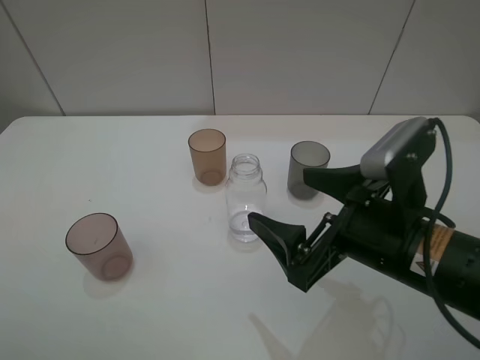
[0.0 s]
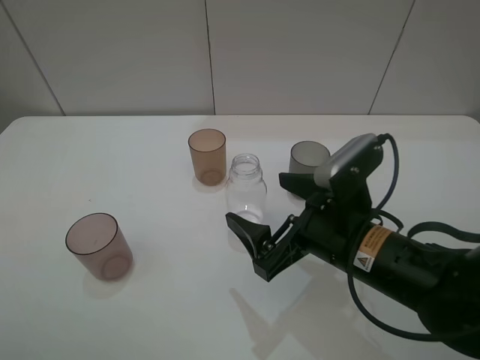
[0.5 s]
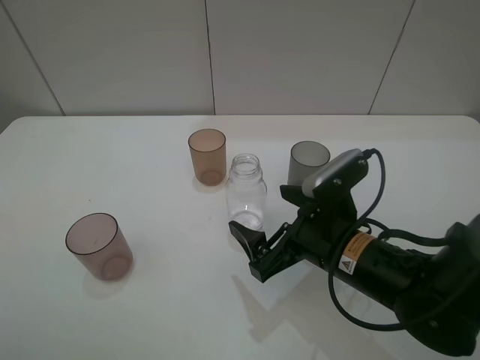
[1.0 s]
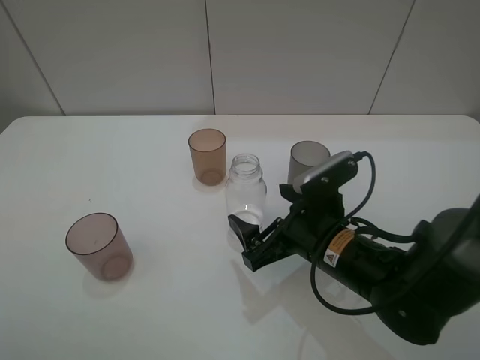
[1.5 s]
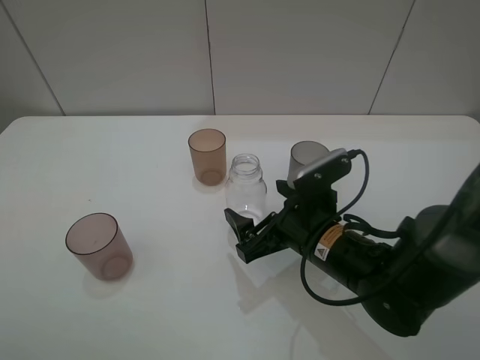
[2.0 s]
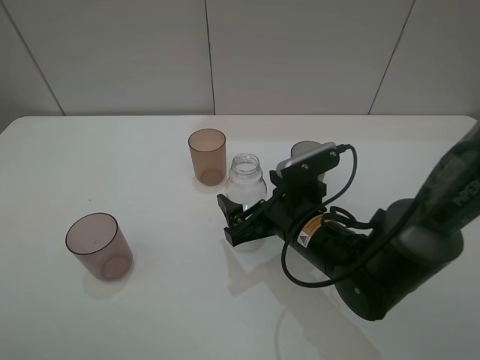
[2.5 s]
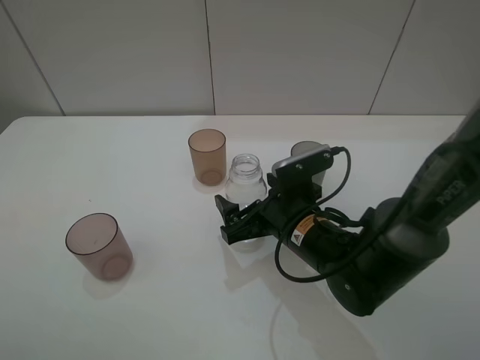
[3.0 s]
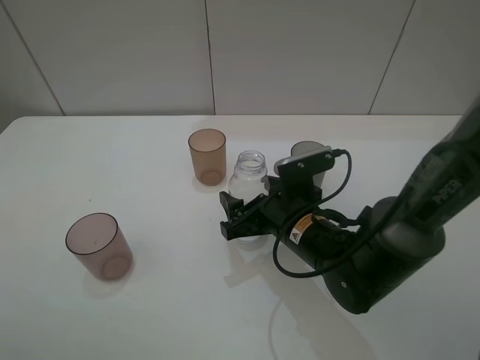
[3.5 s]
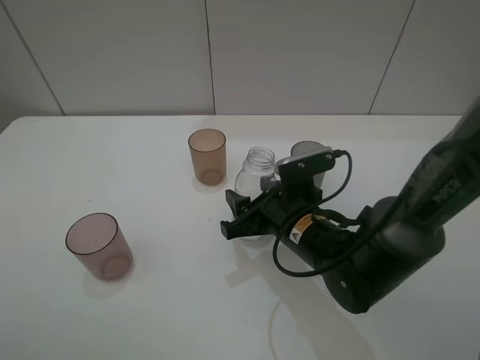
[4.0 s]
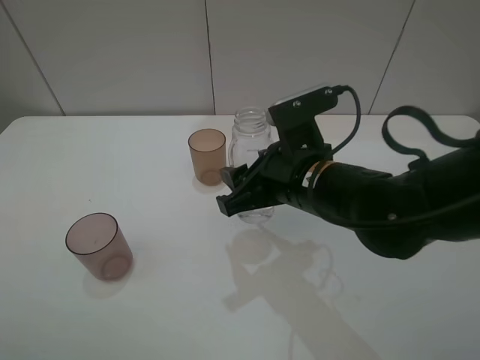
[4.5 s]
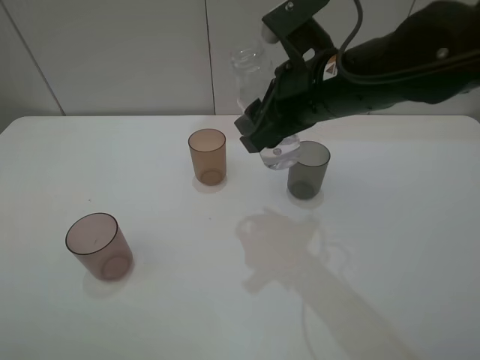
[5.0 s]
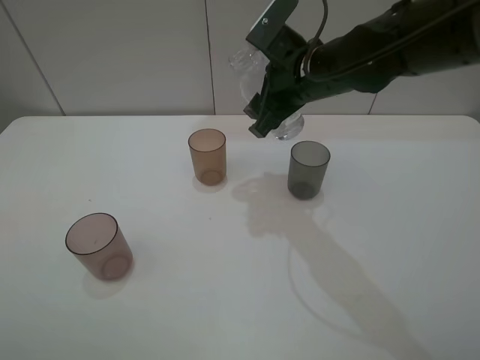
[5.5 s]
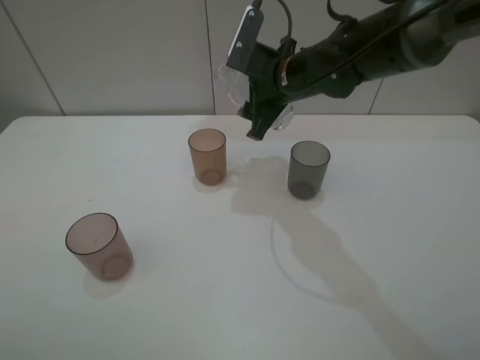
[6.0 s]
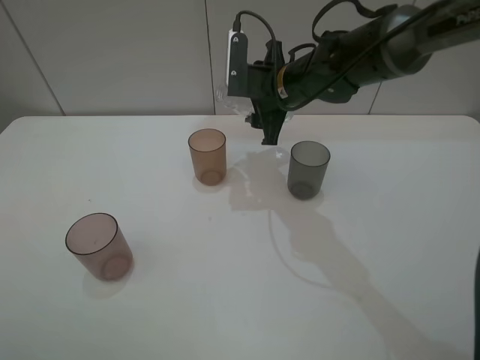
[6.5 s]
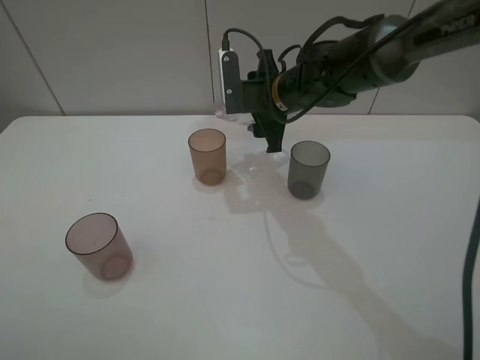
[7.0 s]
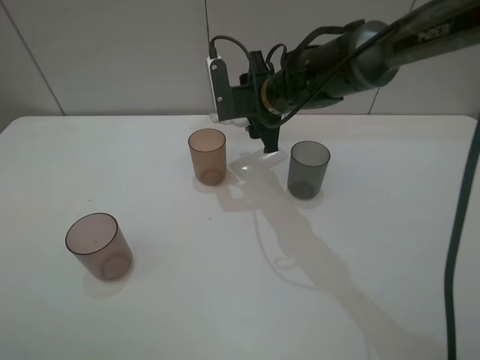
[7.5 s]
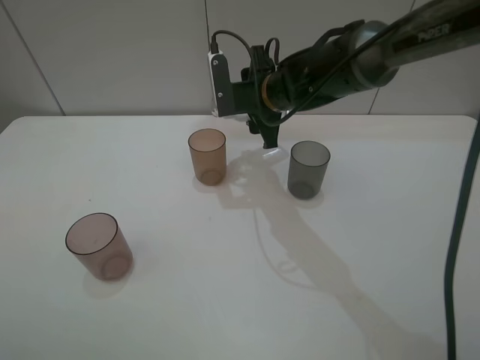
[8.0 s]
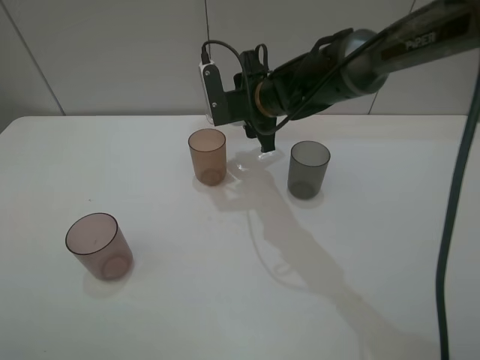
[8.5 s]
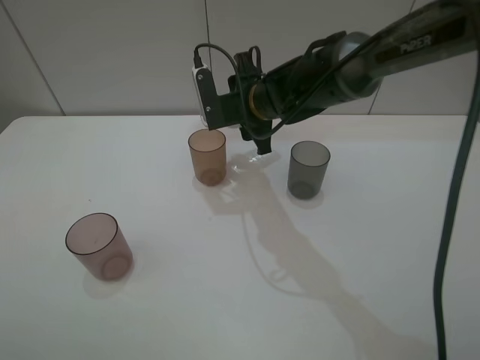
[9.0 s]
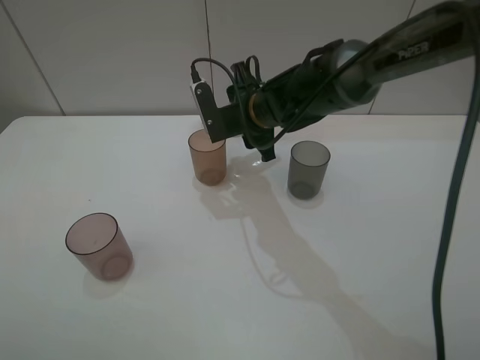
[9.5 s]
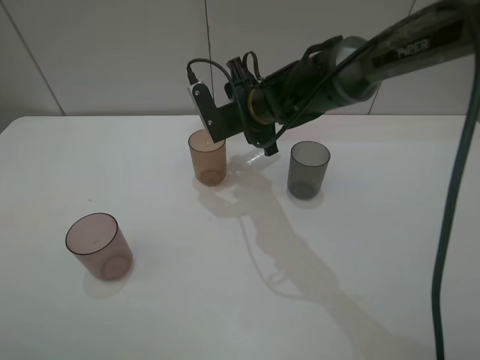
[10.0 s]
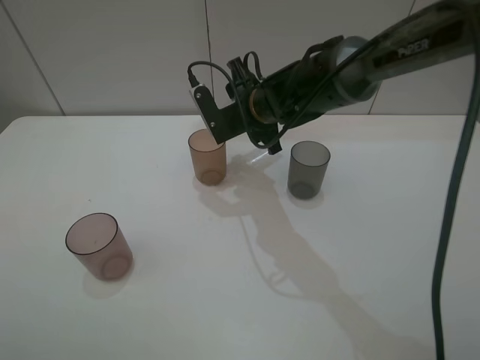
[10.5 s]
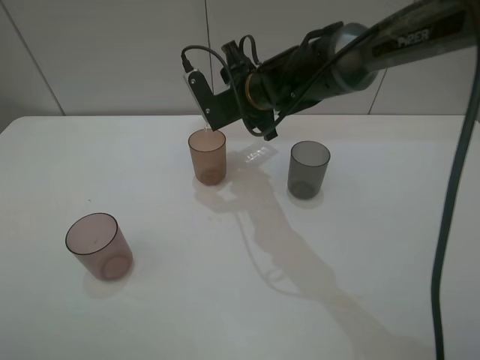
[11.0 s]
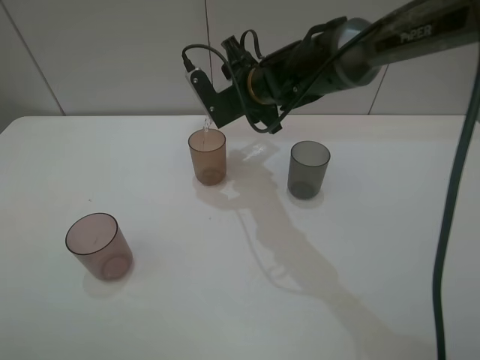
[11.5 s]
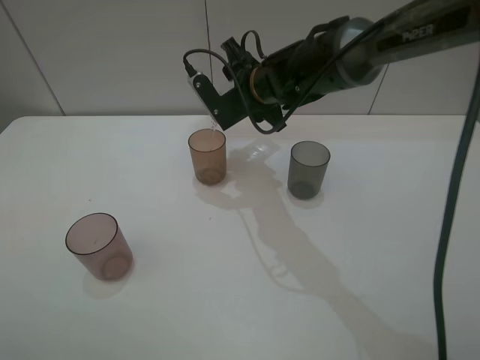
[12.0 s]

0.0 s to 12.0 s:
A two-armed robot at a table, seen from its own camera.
Task of the whole recording: pick up the bottle filled with water and pour water into the middle cup of the three cups.
Step, 0.0 to 3.5 s: Grasp the transparent bottle with the right gripper.
Step, 4.0 to 10.0 s: Pour water from transparent bottle tobrown cup with the right gripper.
0.0 to 2.0 s: The right gripper heads downward and forward, covering roughly 10 cm.
2.0 to 4.0 s: The right gripper closes up.
4.0 to 6.0 s: The right gripper heads forward and upward, covering some 20 cm.
8.0 to 10.0 s: There are only small adjustments of the grippers.
10.0 to 12.0 s: The grippers move only a little.

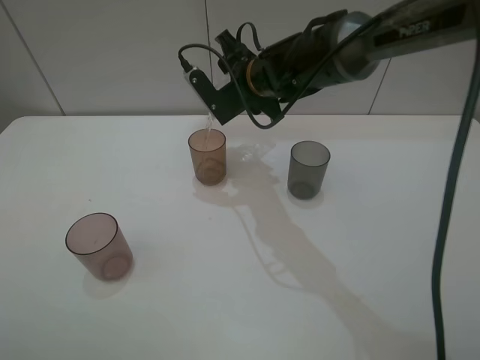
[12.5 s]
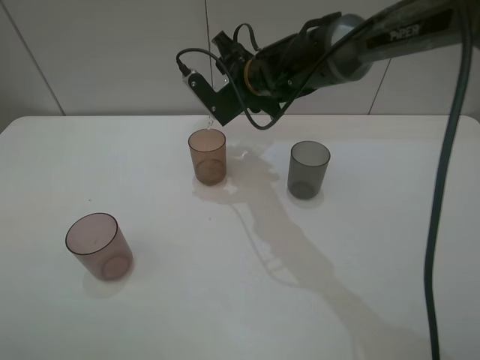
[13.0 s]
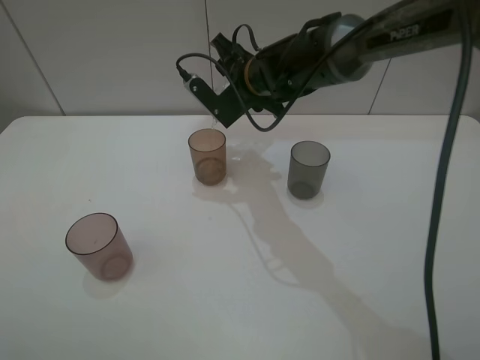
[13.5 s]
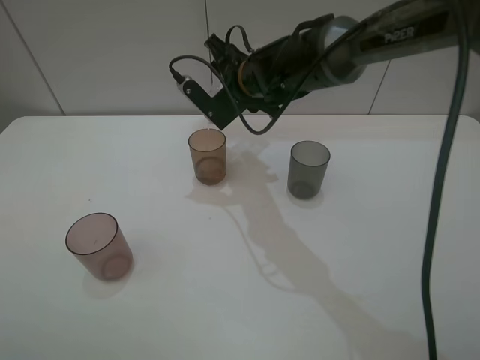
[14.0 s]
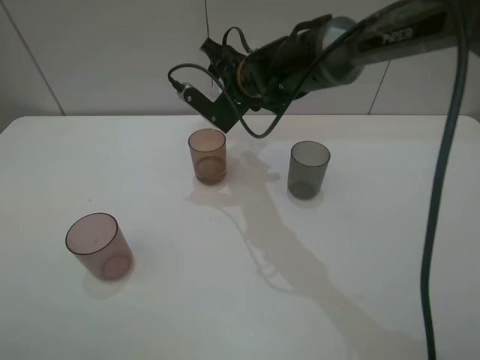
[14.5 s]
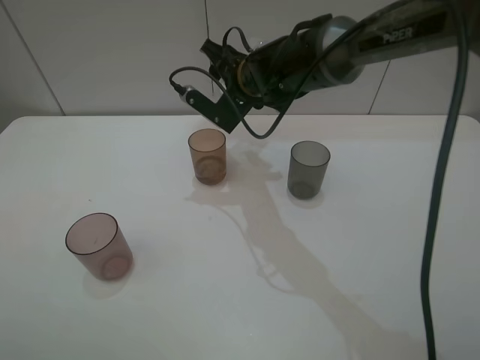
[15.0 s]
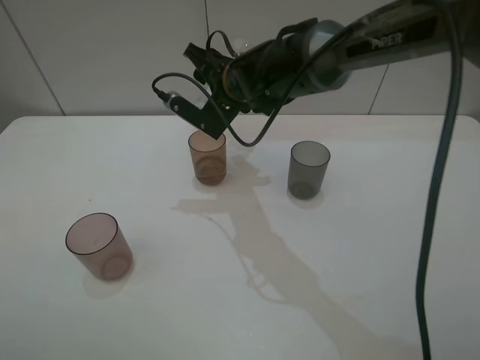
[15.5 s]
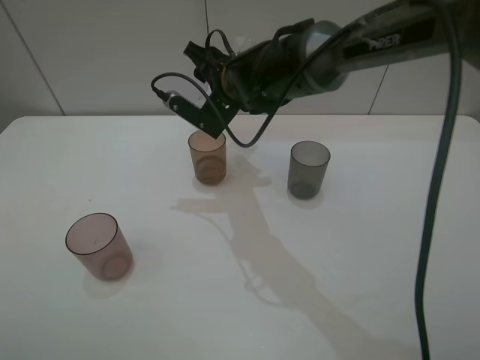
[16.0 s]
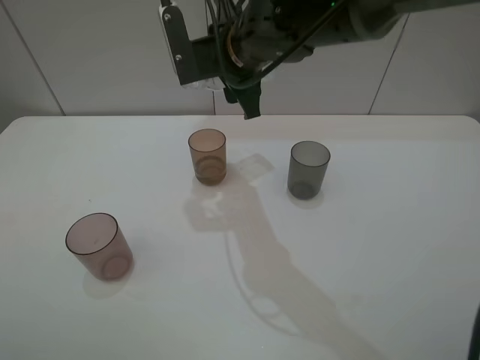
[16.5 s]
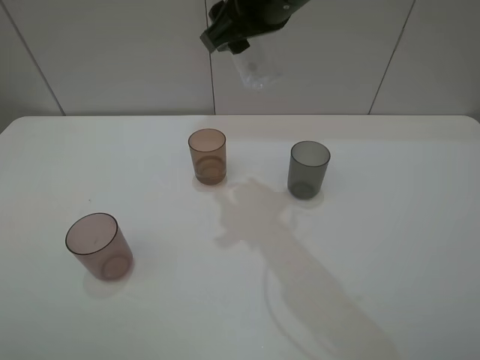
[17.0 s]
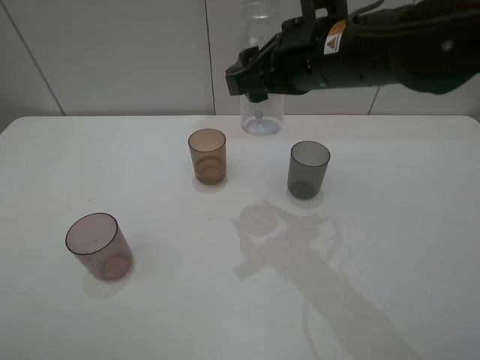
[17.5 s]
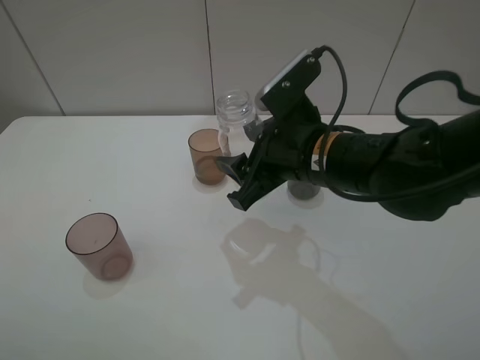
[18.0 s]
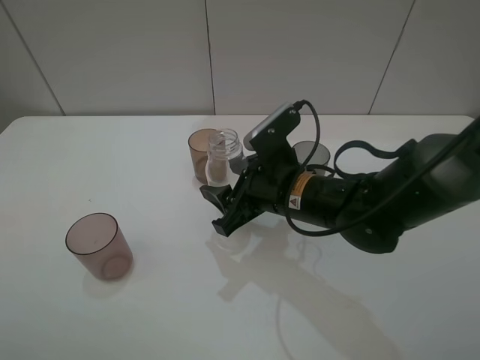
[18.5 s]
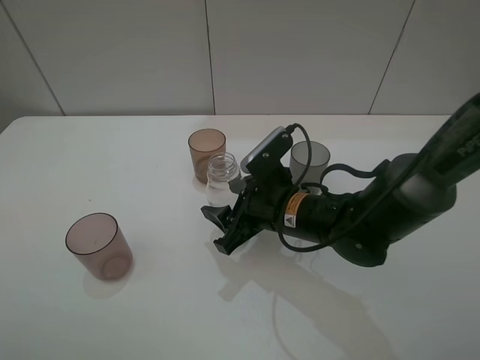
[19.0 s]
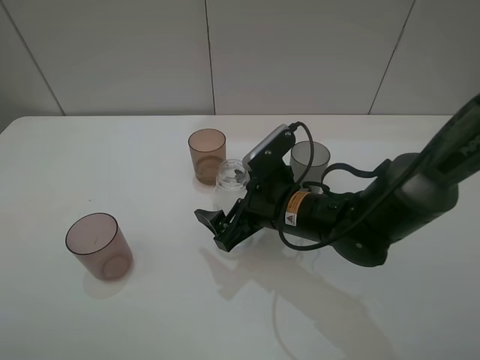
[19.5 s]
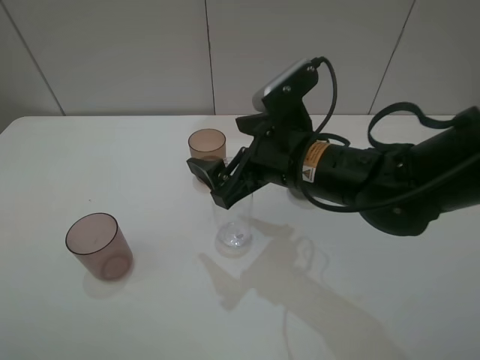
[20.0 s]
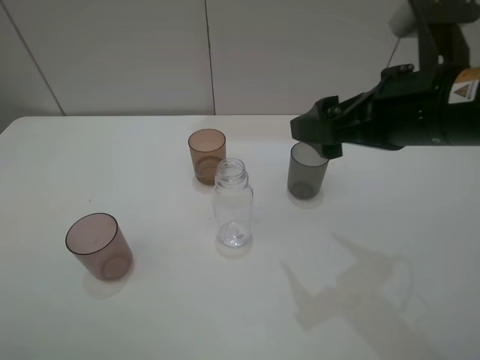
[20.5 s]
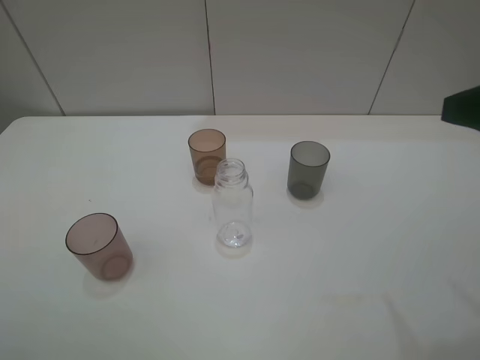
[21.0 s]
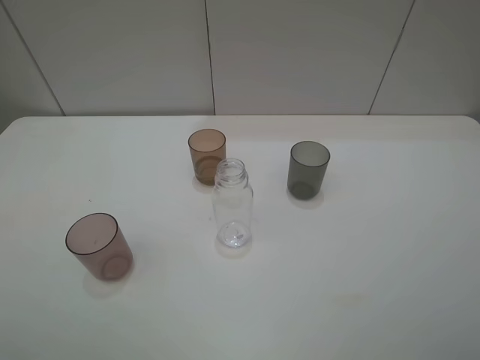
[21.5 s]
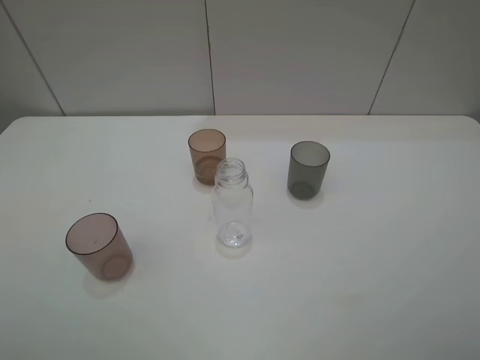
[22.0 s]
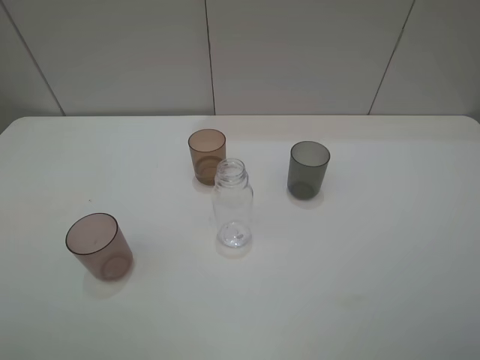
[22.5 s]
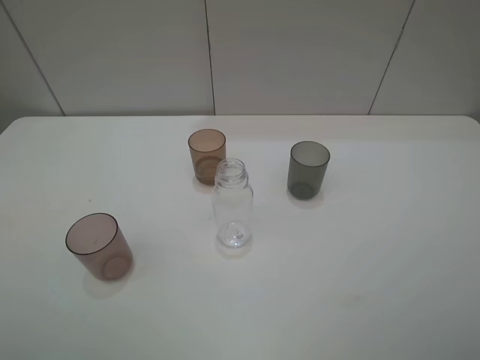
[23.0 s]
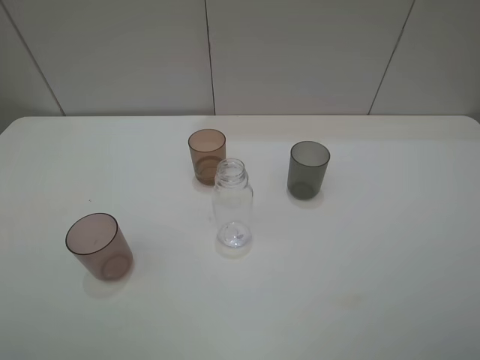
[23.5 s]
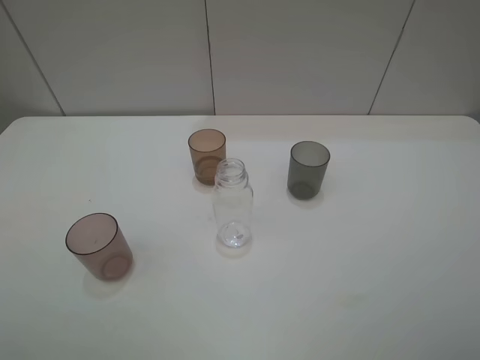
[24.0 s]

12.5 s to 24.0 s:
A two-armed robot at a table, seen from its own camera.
Task of the whole recording: pick up the bottle filled with water and pour water into the middle cup of the three cups.
Step, 12.5 to 20.0 s: Place the transparent bottle with the right gripper.
12.5 to 14.5 s: The grippers move only a little.
14.5 to 16.5 s: The right gripper goes roughly 5 cm upward.
16.5 to 18.5 s: The right gripper is displaced downward and backward by about 20 cm.
18.5 to 20.0 s: The right gripper moves upward, approximately 5 cm, and opens up.
20.0 to 22.0 s: The right gripper moves backward, to the right and upward, some 35 cm.

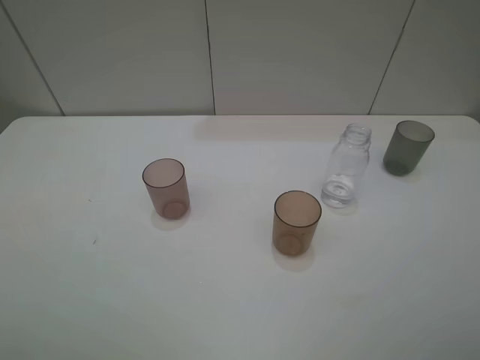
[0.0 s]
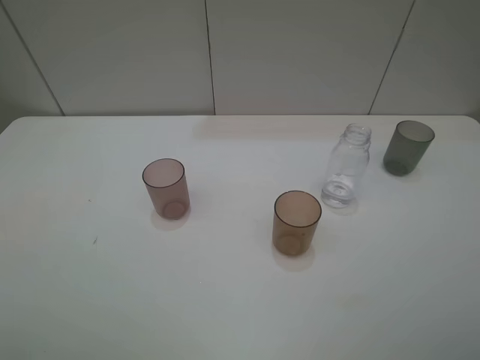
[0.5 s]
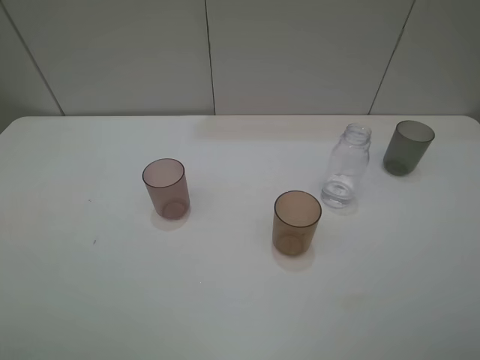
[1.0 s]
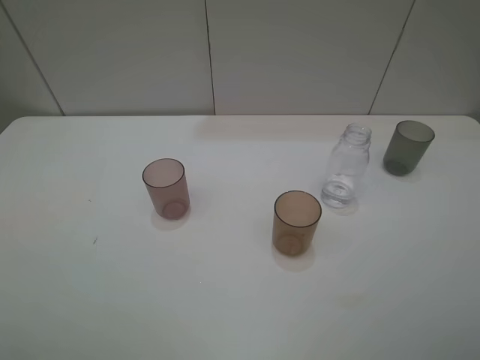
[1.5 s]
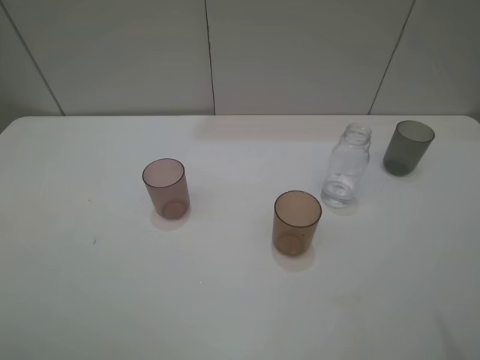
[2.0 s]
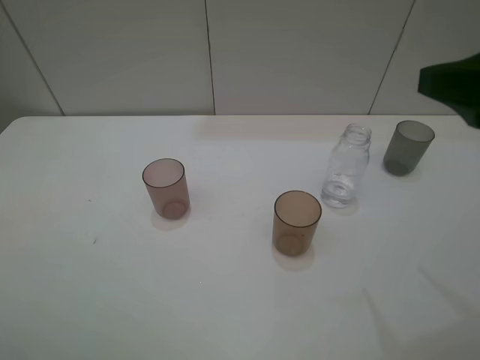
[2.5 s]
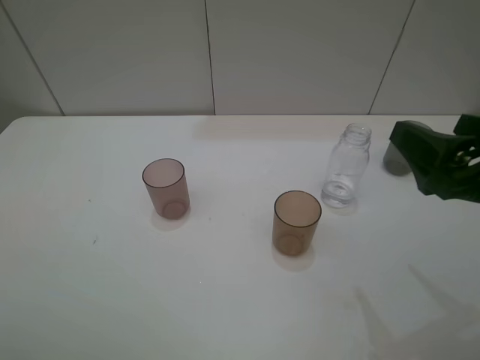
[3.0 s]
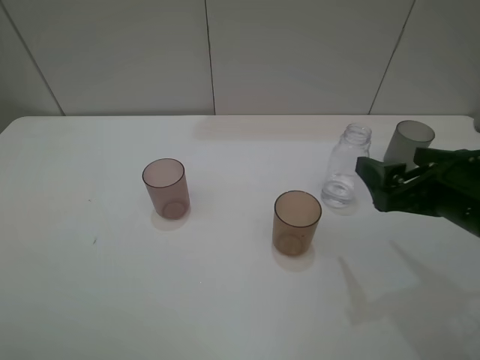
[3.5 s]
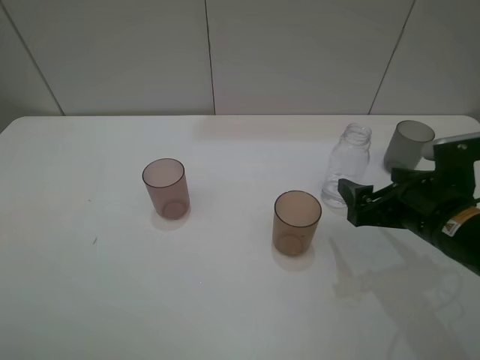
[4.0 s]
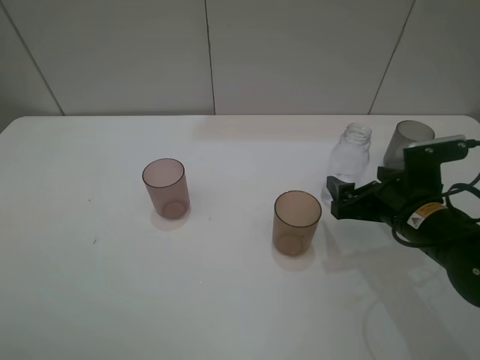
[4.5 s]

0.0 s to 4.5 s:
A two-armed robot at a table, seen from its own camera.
Task of the whole recording: pick up the bottle filled with water and pour water into the middle cup of the three cups.
2.0 to 4.5 s: The right gripper goes about 25 cm downward and forward.
